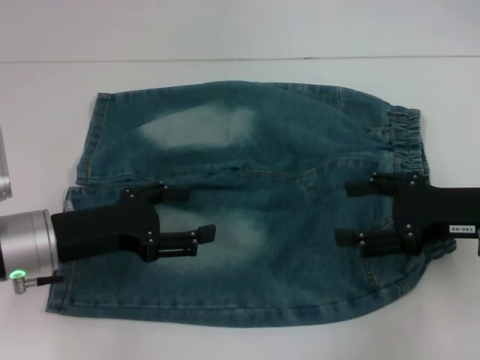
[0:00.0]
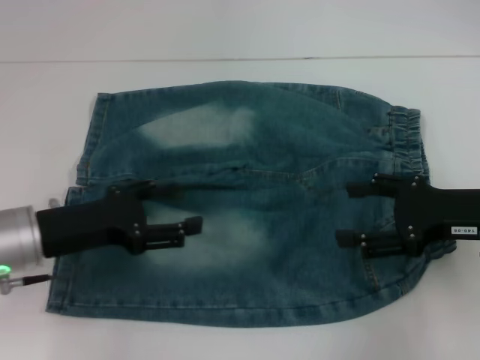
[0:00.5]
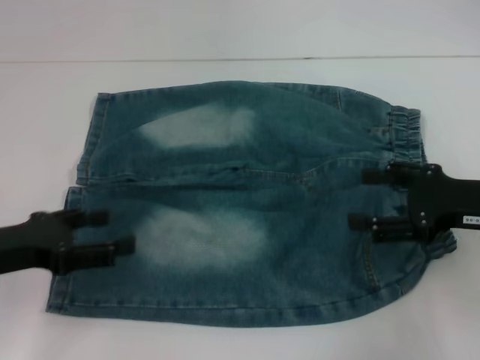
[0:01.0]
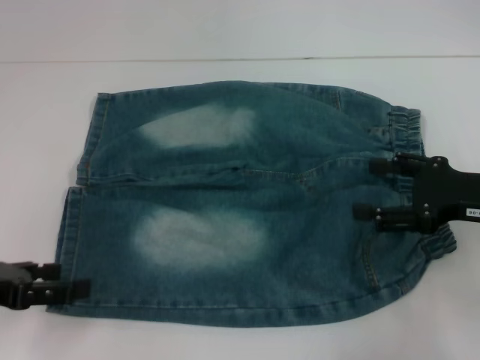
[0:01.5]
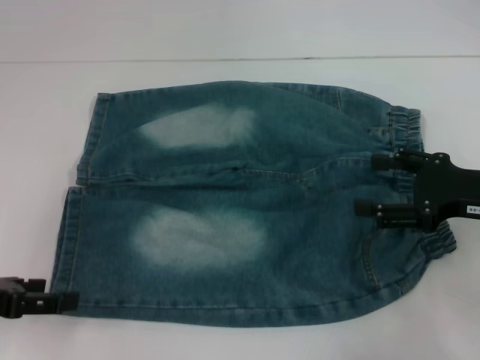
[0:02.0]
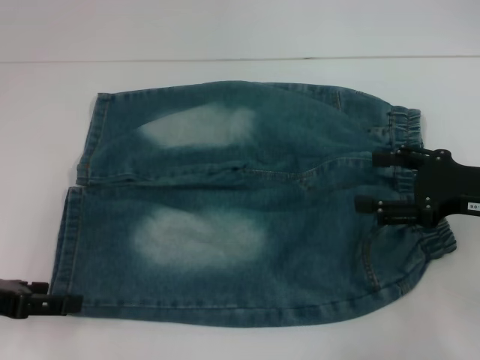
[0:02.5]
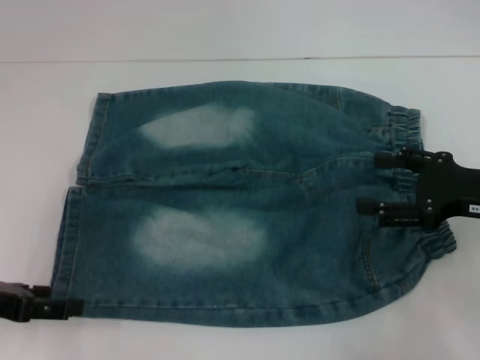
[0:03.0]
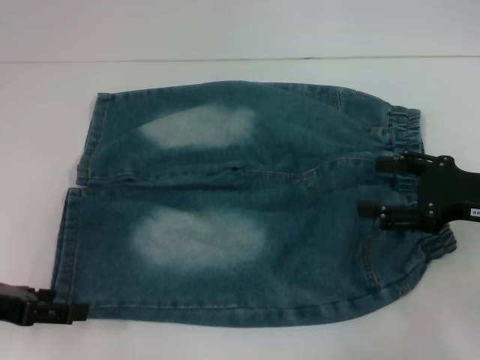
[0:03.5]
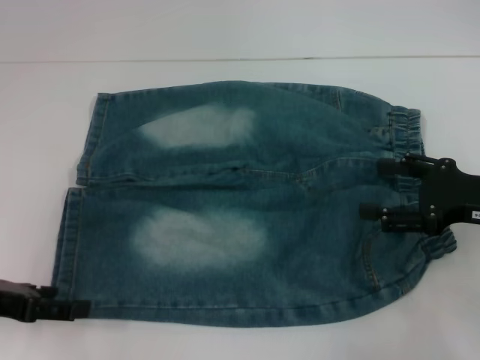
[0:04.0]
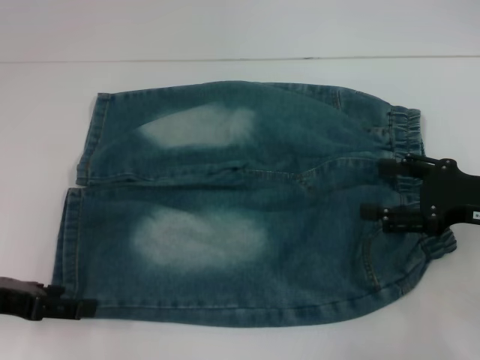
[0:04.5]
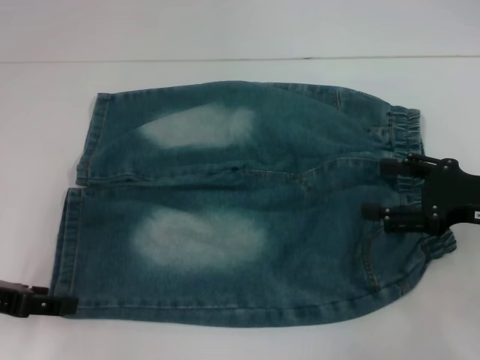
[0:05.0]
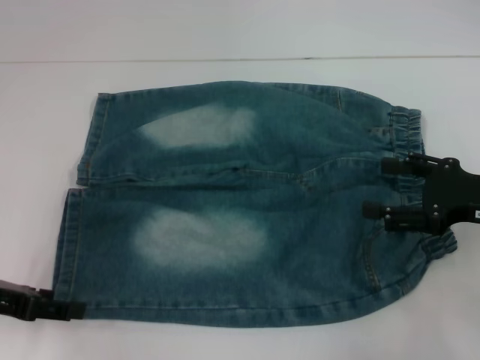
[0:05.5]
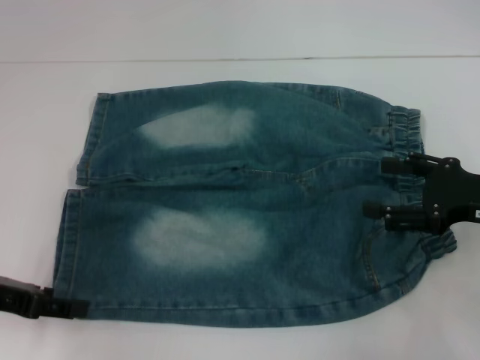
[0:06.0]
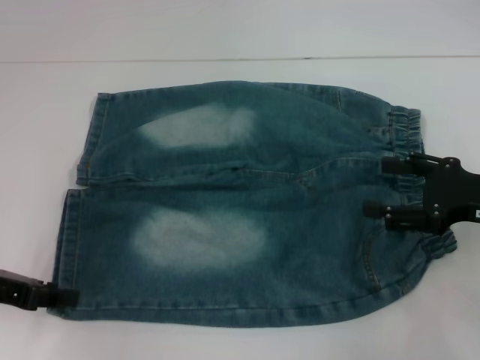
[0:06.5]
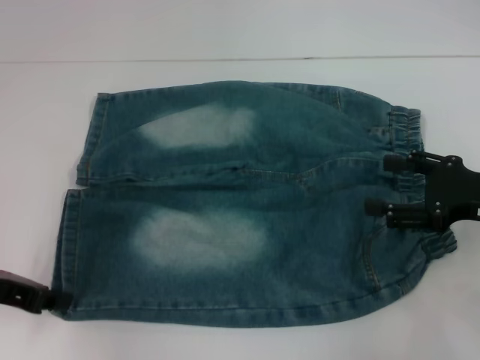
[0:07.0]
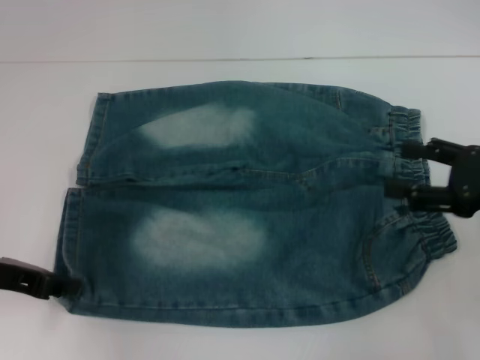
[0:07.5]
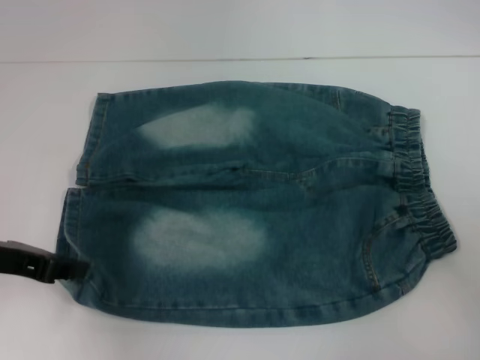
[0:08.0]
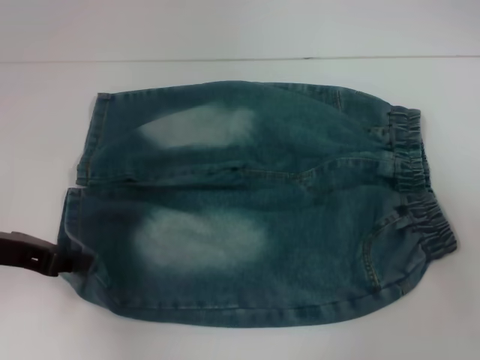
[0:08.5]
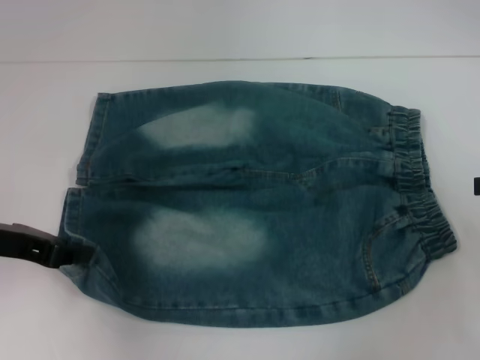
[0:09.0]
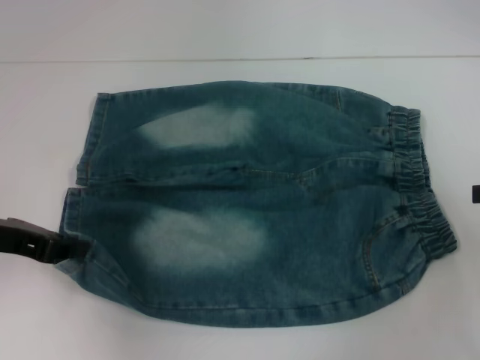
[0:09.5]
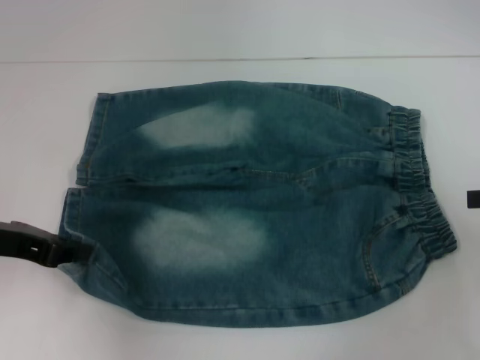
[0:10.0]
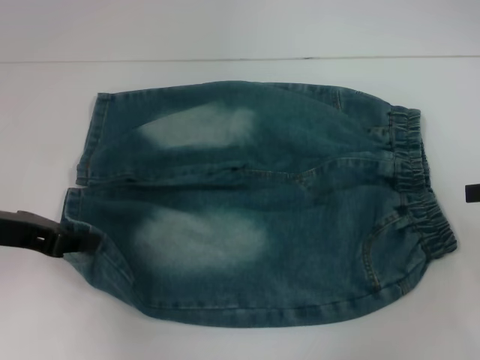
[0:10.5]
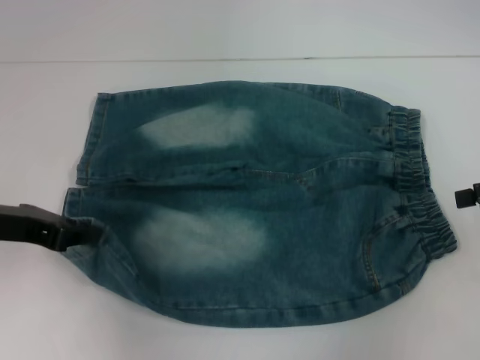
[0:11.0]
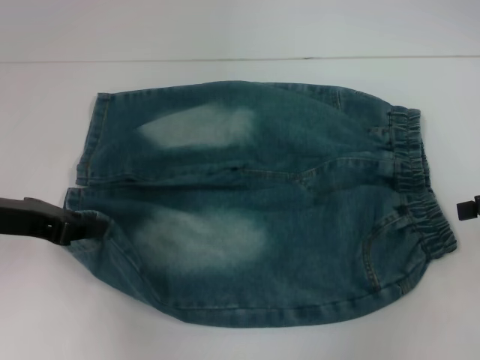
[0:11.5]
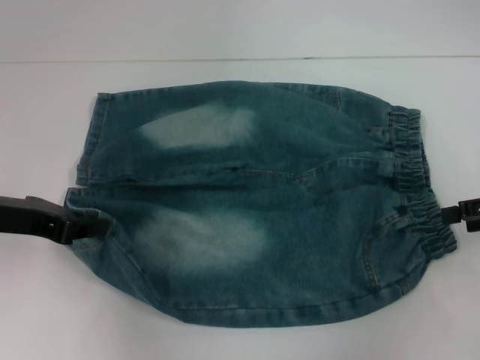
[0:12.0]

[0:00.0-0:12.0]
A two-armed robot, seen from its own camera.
Step, 0:00.0 to 0:06.0: Grab the lower left pant leg with your left hand.
0:00.0 to 0:02.0: The left gripper heads to the left and backward, covering approximately 10 cm.
0:02.0 to 0:06.0: There are only small adjustments of the grippers.
0:06.0 to 0:08.0: The left gripper closes its fingers, while the right gripper goes some 10 cm to the right.
0:10.0 to 0:12.0: The grippers move only a little.

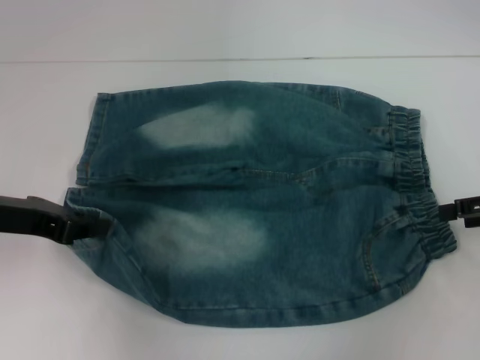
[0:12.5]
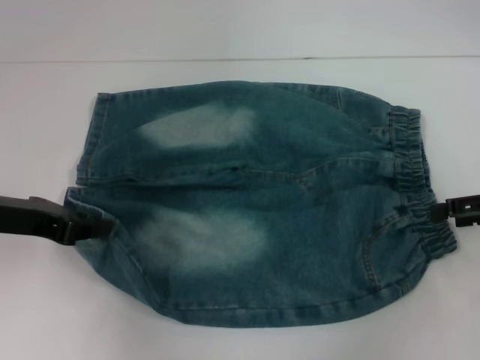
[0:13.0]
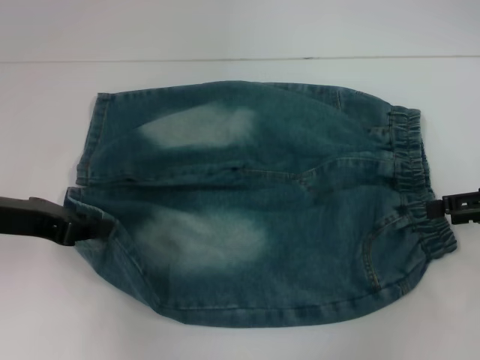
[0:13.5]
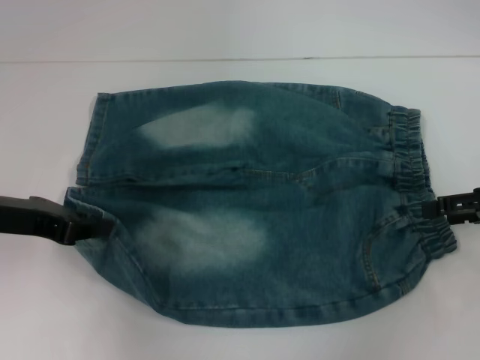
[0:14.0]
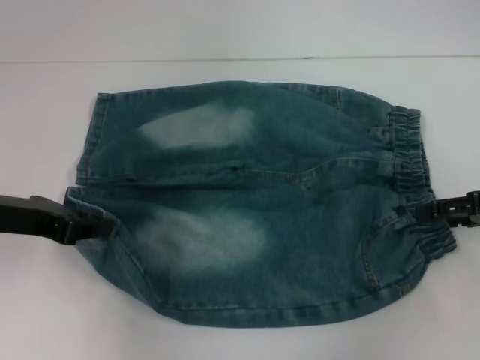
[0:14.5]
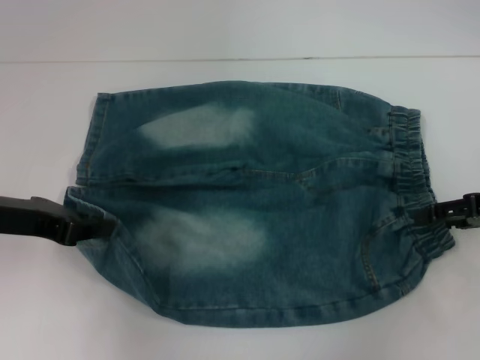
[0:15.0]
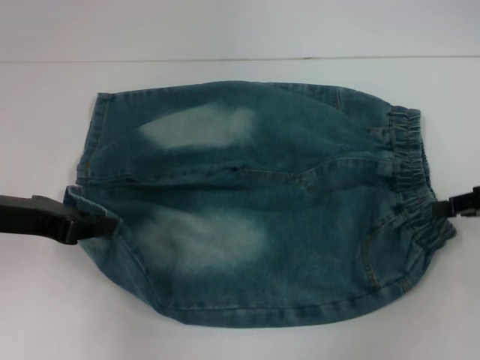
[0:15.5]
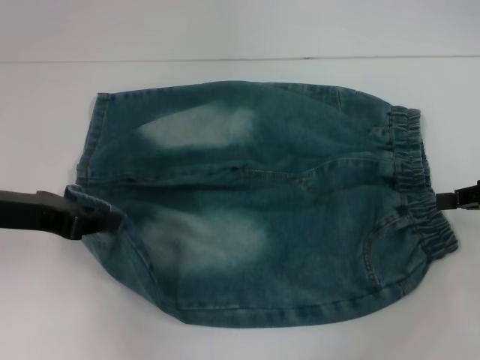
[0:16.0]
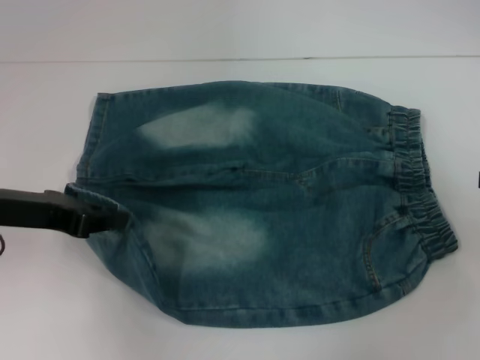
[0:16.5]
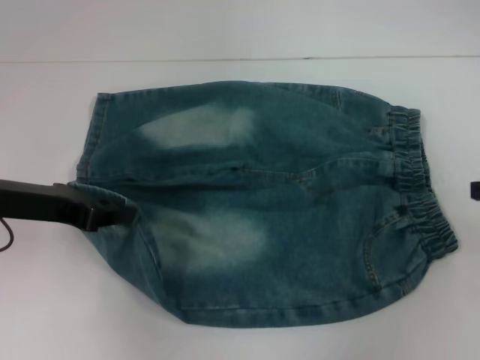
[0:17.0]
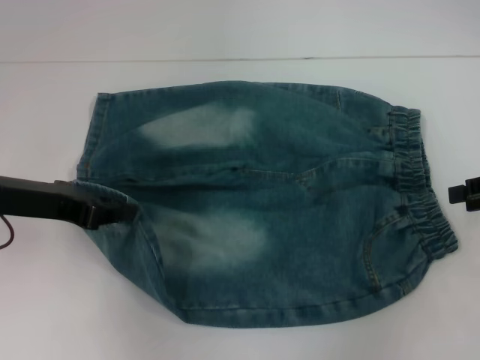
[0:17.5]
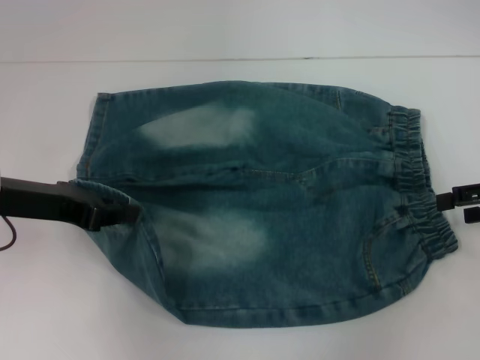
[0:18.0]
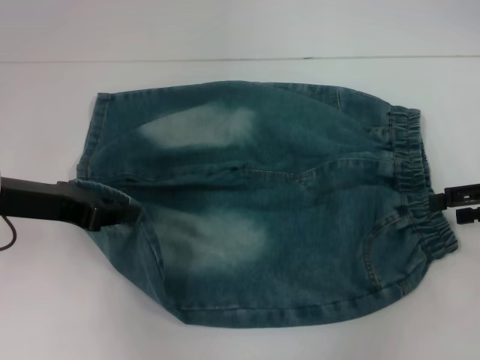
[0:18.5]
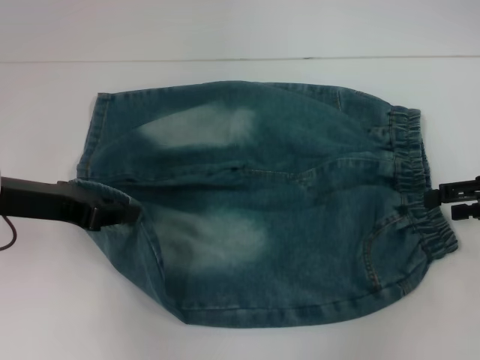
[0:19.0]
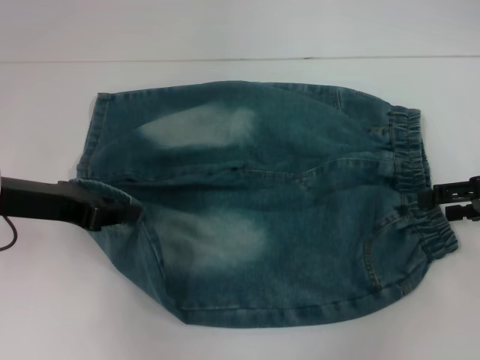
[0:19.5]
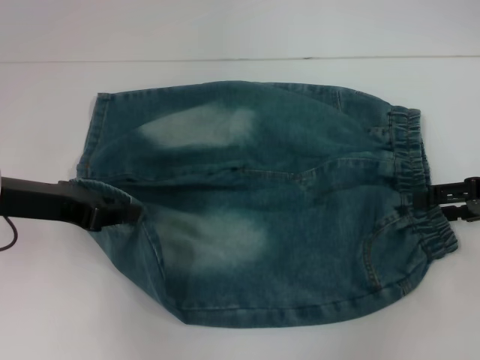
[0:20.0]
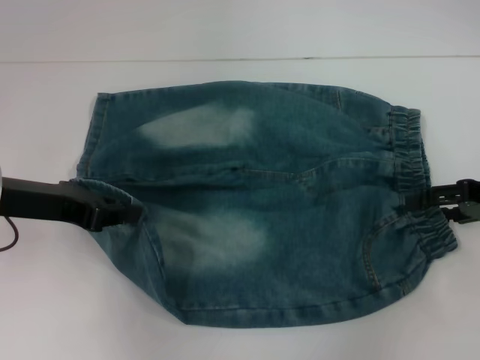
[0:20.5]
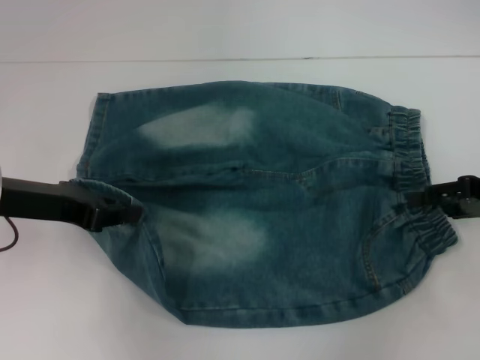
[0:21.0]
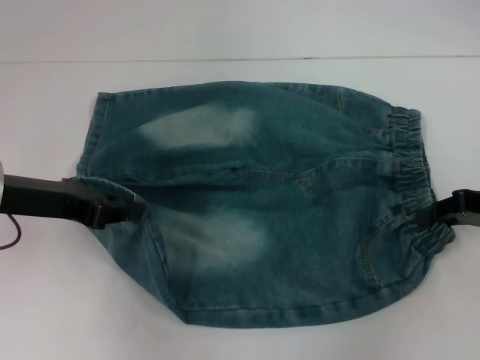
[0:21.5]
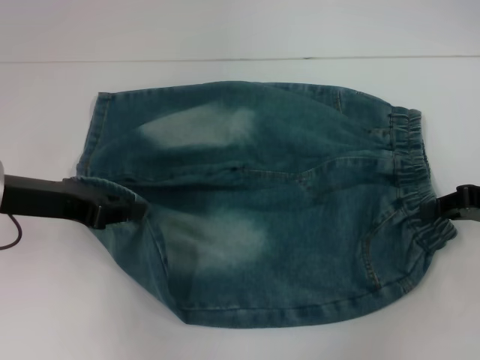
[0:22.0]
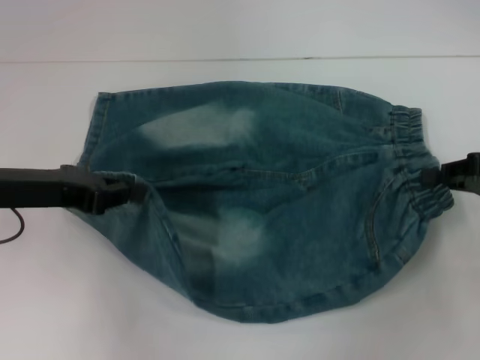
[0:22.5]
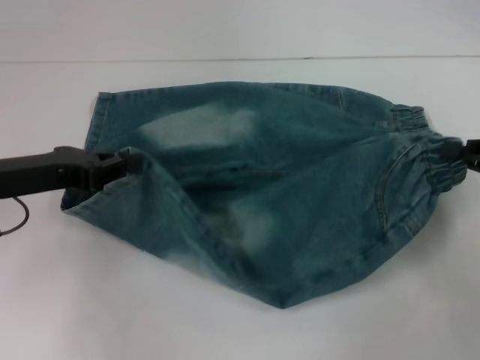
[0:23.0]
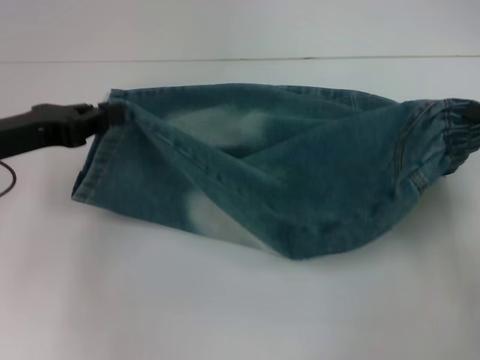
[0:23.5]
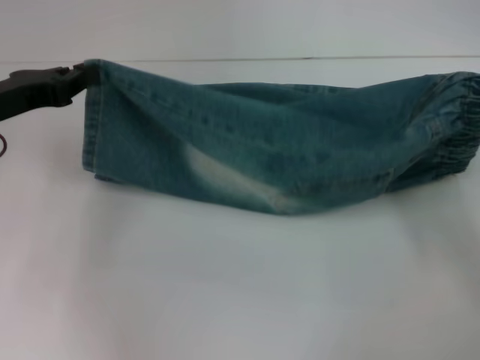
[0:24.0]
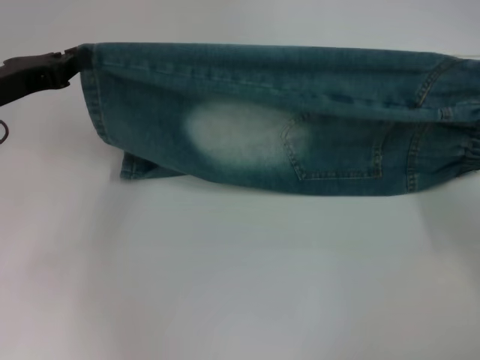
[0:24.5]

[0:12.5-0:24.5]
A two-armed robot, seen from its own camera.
Step, 0:12.5 to 0:21.5: Hold the lower right waistband with your right hand.
0:14.5 to 0:16.5: The right gripper changes place by some 5 cm, and closes.
0:16.5 to 0:18.5: The right gripper opens.
0:18.5 to 0:20.5: The grippers move only a little.
0:20.5 to 0:22.5: The right gripper closes its fingers.
0:22.5 to 0:24.5: The right gripper changes place by approximately 5 cm; the left gripper travels forward by roughly 5 cm.

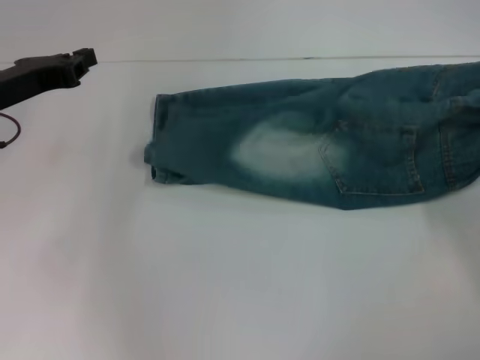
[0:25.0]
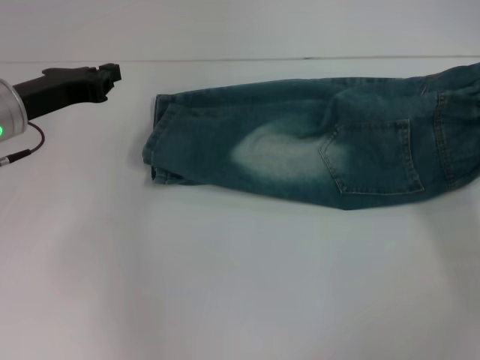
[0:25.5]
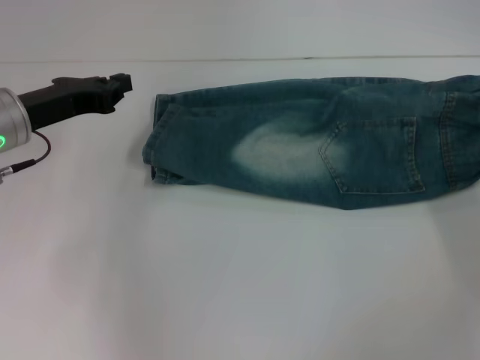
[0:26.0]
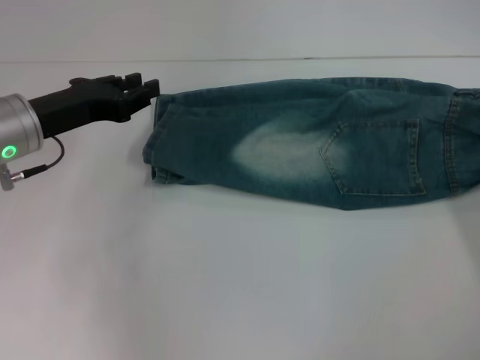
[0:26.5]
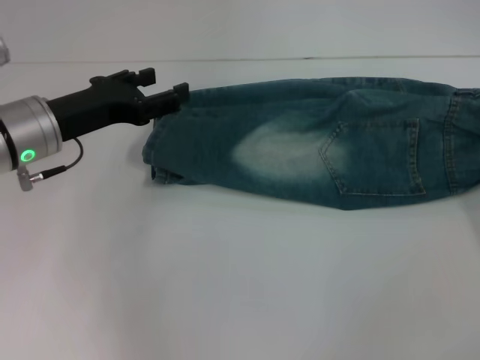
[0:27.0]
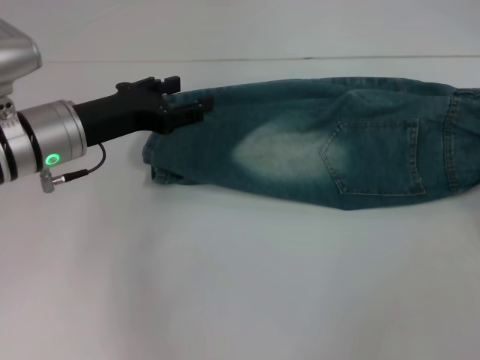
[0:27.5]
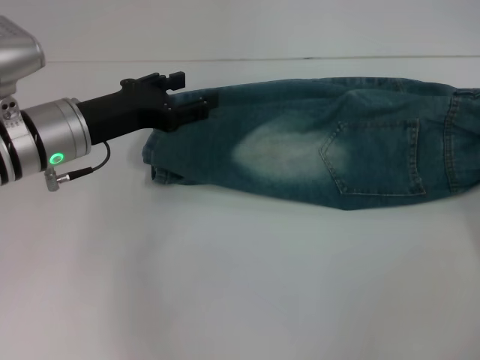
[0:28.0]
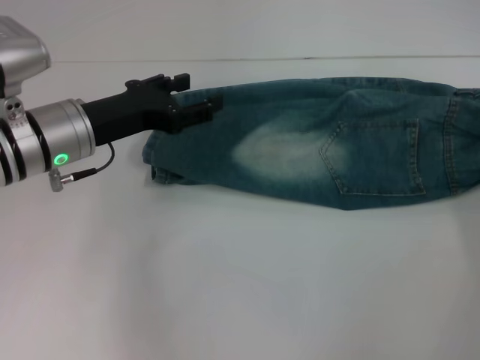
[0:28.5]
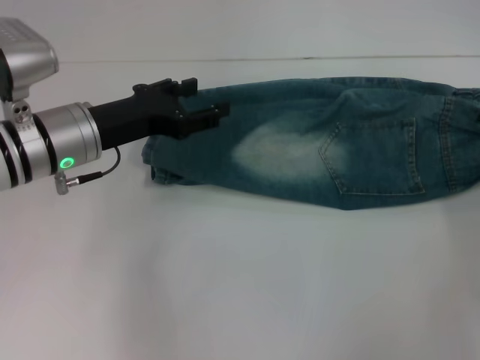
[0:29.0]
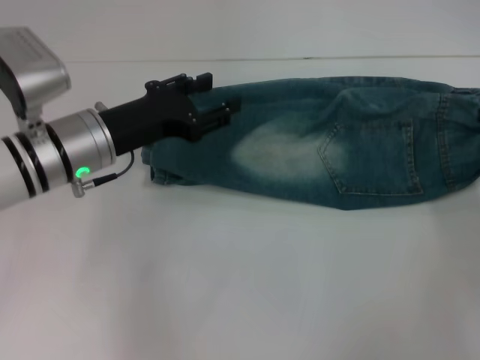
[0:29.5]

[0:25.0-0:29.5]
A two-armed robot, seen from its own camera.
Step, 0:25.5 to 0:26.0: Fold upward with your right hand.
Step, 0:27.0 to 0:29.5: Grab the waistband with your right hand.
0:25.0 to 0:27.0: The left gripper heads to the right, covering approximately 5 cm, and opens its fingers. The right gripper changes place by some 5 cm, and opens.
0:27.0 to 0:29.5: The right gripper goes approximately 5 cm forward, and closes.
